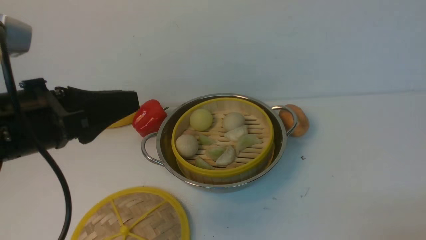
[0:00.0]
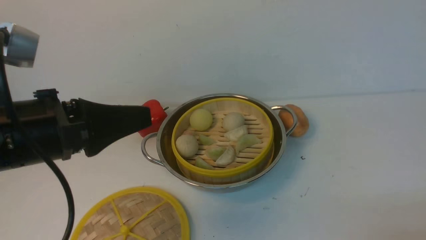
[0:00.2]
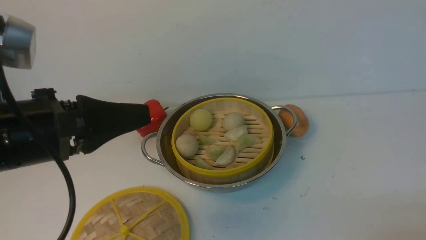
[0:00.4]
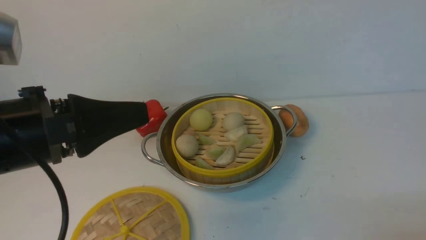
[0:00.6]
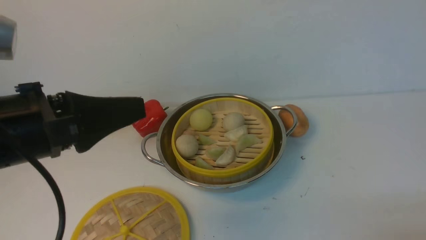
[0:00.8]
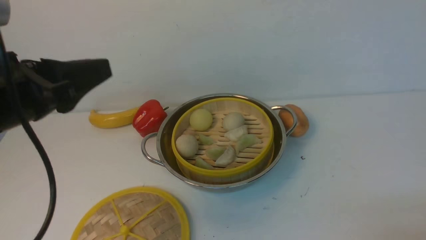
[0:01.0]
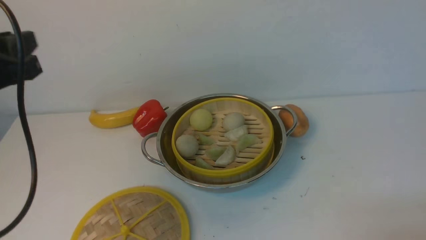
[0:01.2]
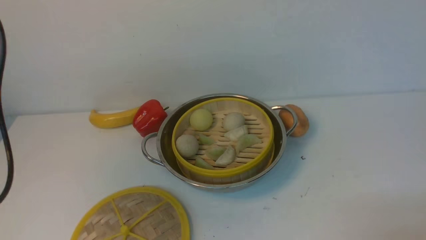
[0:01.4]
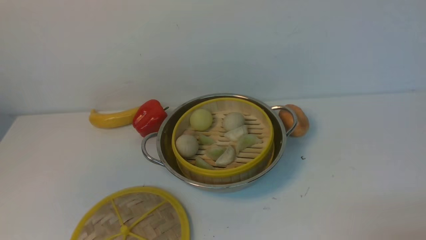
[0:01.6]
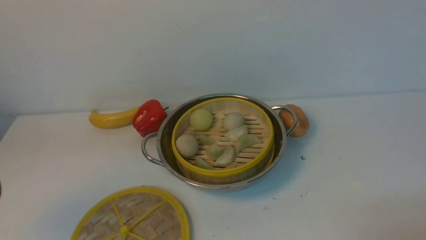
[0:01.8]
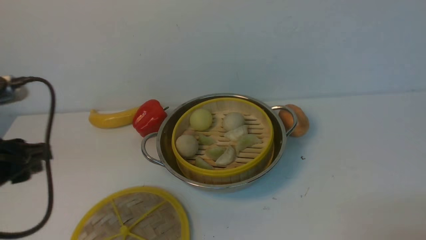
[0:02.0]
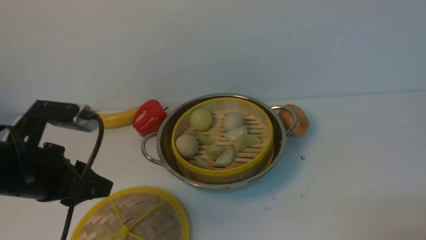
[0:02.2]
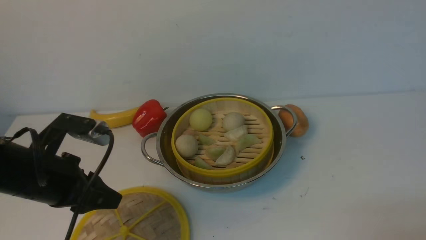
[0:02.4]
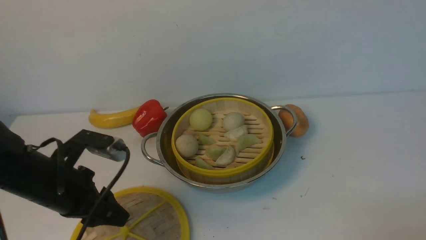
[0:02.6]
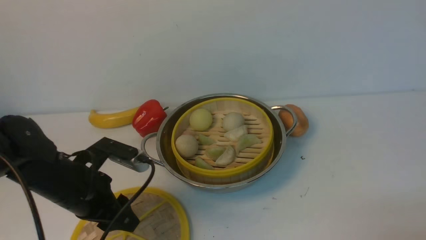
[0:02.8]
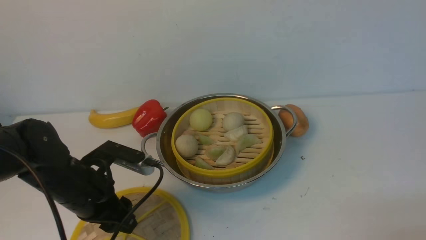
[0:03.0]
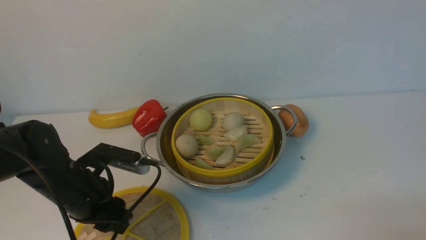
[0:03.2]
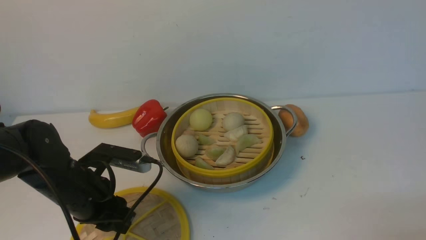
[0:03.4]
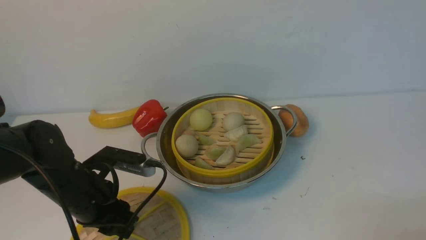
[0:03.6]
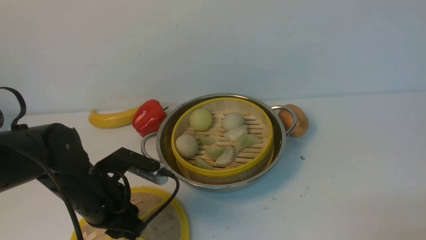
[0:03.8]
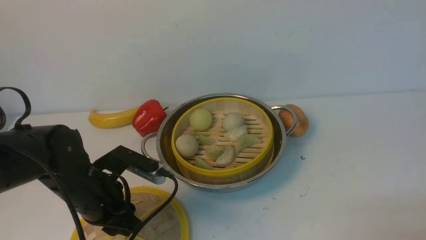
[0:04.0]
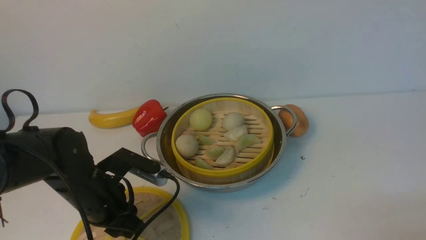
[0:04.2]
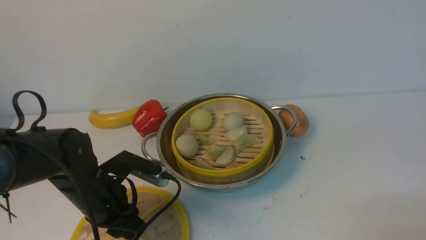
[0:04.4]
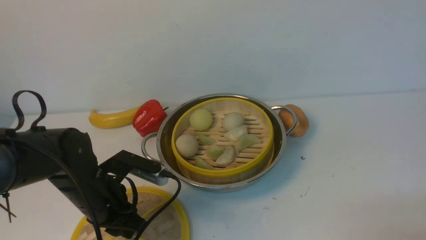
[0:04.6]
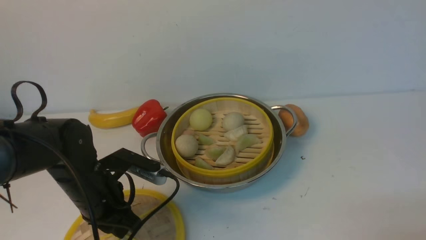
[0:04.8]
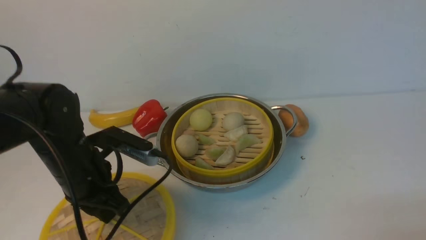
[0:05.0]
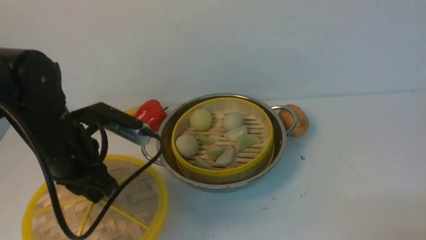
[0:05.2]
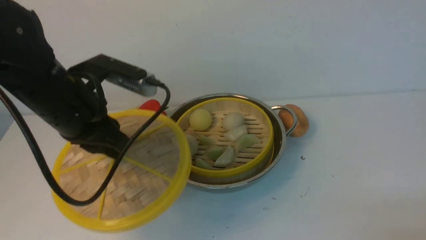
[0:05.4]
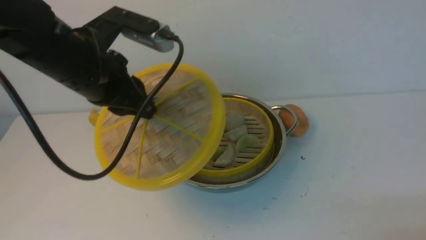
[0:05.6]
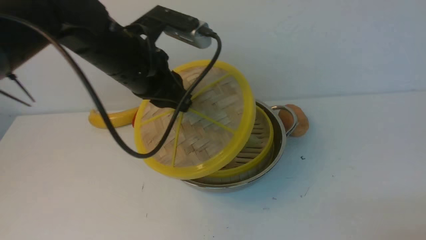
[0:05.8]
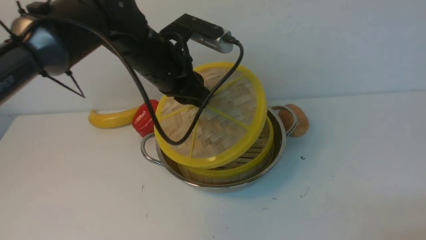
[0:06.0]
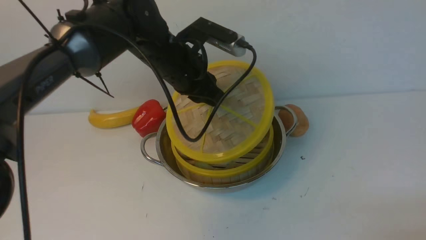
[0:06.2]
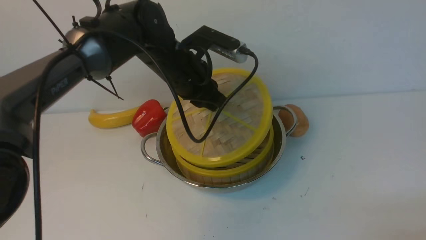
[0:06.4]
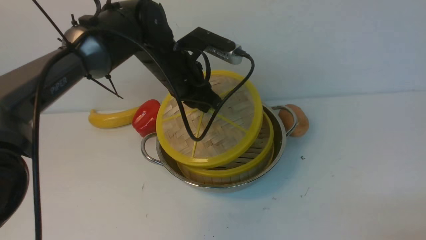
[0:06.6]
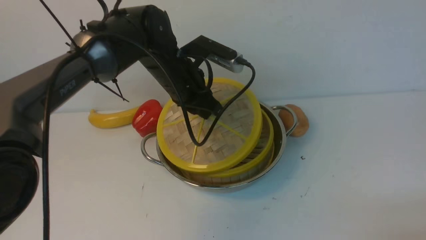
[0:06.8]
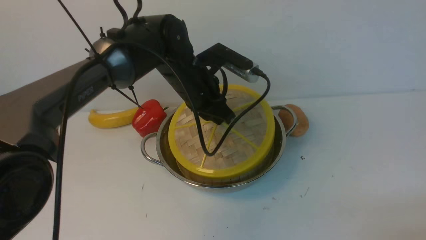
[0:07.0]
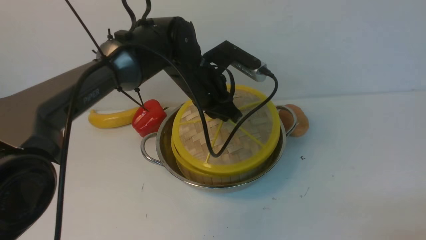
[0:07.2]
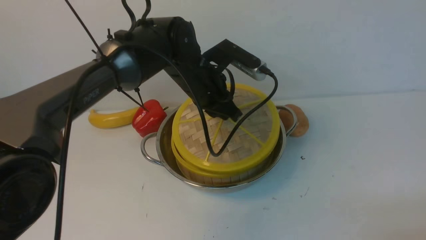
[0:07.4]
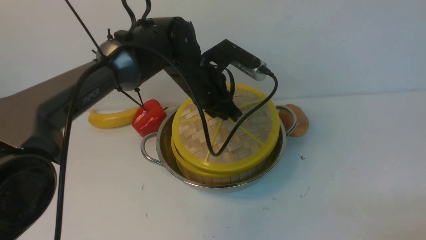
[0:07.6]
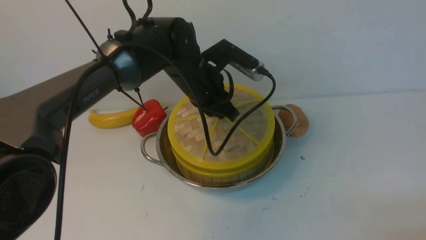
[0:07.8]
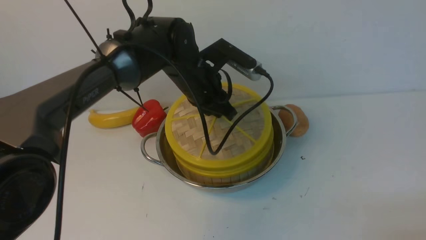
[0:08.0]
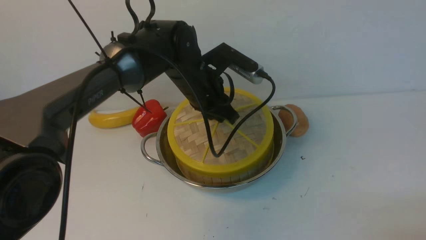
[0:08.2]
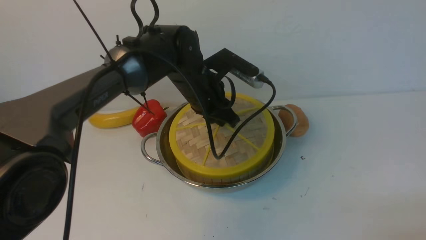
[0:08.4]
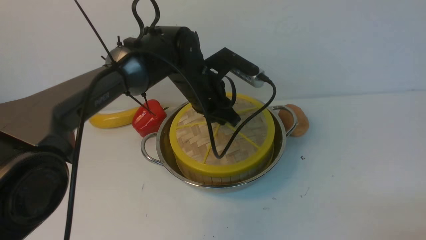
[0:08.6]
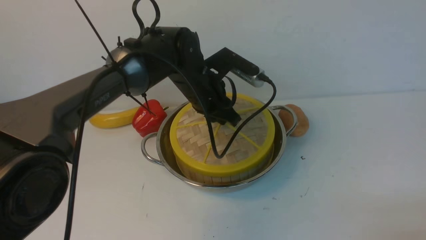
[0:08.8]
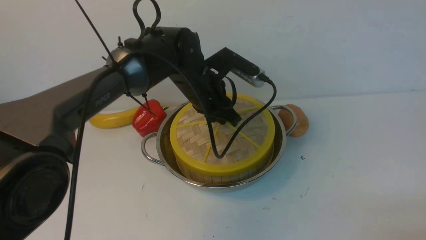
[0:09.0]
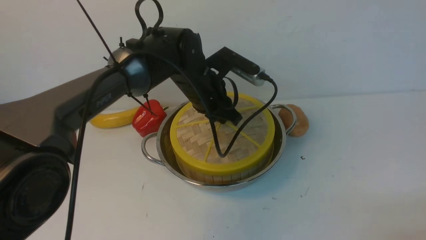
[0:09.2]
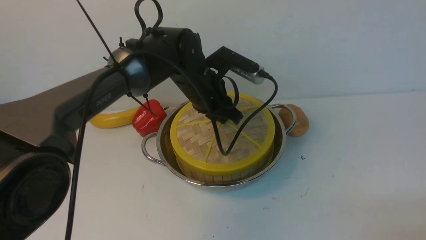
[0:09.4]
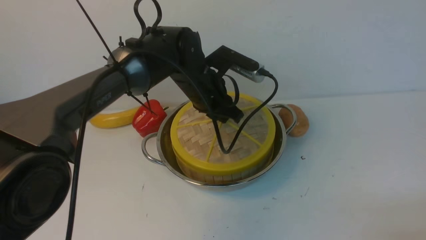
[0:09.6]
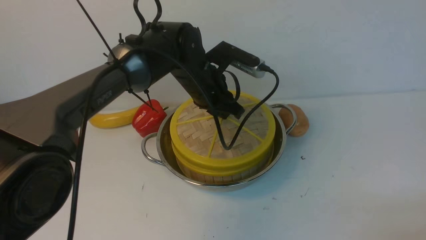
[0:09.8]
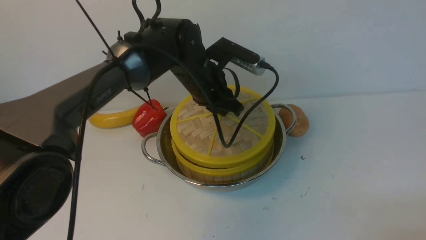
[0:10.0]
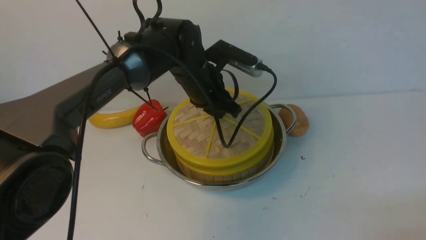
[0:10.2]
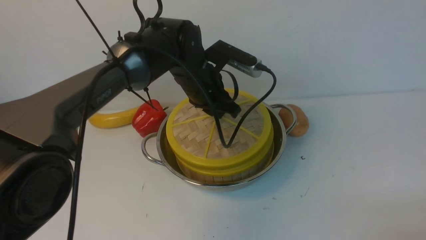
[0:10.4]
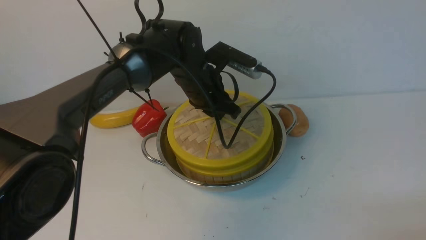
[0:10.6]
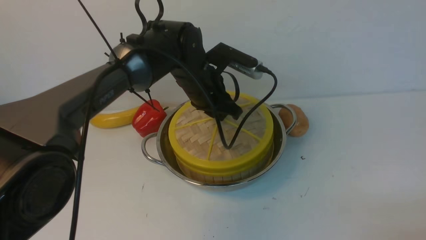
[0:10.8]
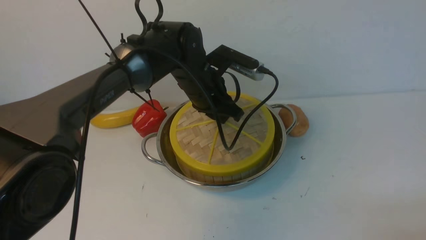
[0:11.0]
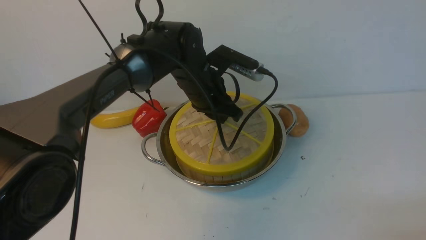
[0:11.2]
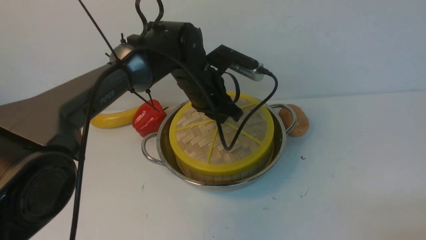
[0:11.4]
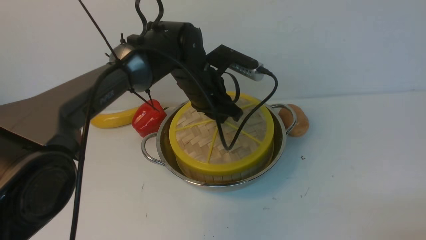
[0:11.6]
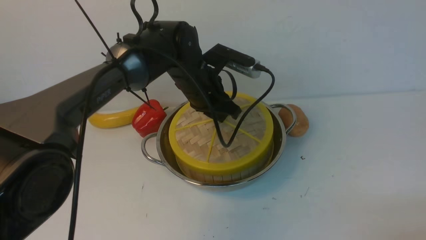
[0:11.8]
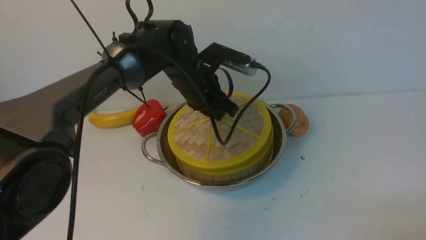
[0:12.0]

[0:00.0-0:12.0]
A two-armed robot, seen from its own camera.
Task of the whole recording: place the steamer in the pot on the white table, and put the lid on the steamer.
Step, 0:00.0 to 0:05.4: use the left arm to lift the lid of the steamer.
0:00.0 to 0:01.6: The left gripper heads to the left, covering approximately 15 cm.
0:01.6 to 0:03.0: The left gripper travels downward and to the right by approximately 20 cm, and opens.
0:03.0 to 0:04.4: The grippers move only a little.
0:04.4 to 0:06.0: The left gripper is displaced upward, forward and to the right by approximately 20 cm, and closes up.
0:06.0 to 0:07.6: The left gripper goes about 10 cm downward and to the right.
0:07.6 to 0:09.0: The grippers move only a little.
0:09.0 to 0:10.4: The two grippers keep their place.
0:10.4 to 0:12.0: Neither gripper changes place.

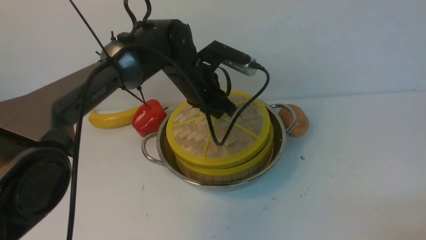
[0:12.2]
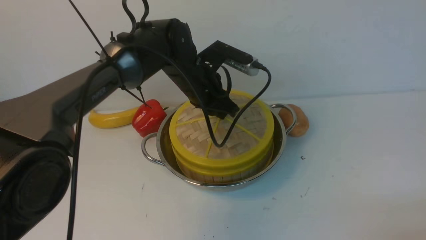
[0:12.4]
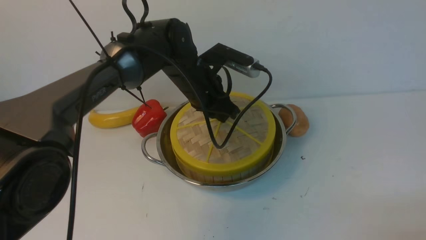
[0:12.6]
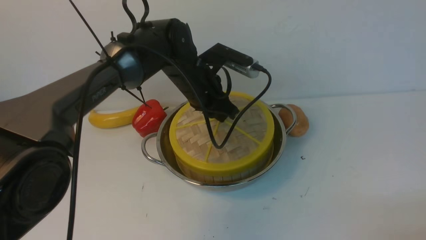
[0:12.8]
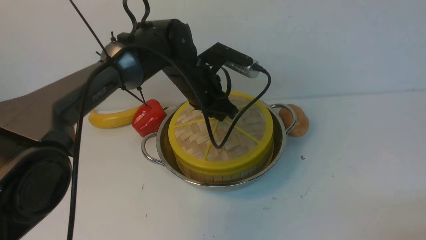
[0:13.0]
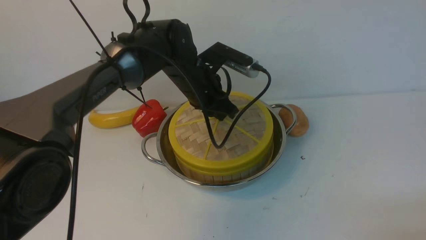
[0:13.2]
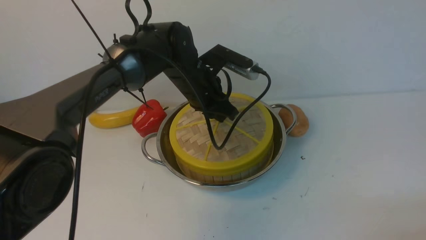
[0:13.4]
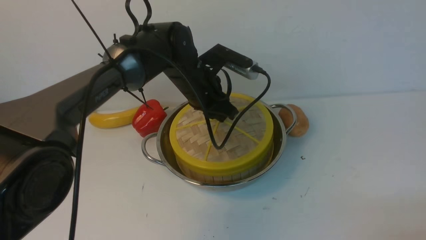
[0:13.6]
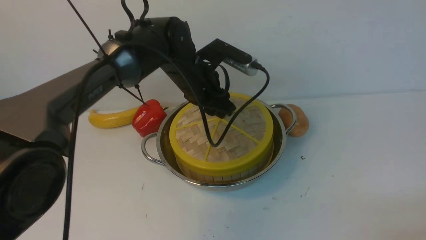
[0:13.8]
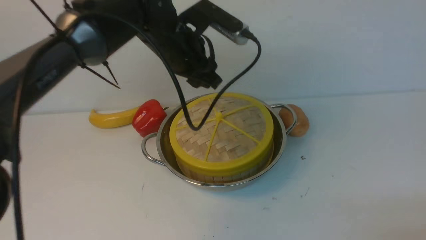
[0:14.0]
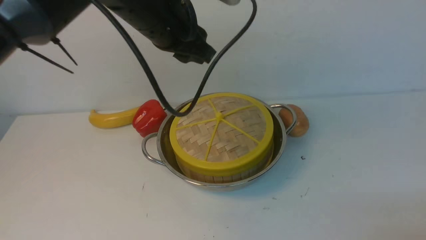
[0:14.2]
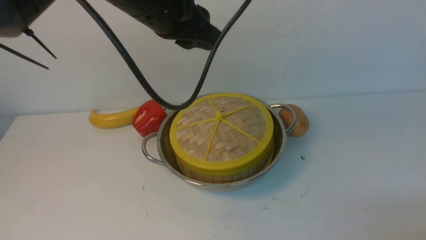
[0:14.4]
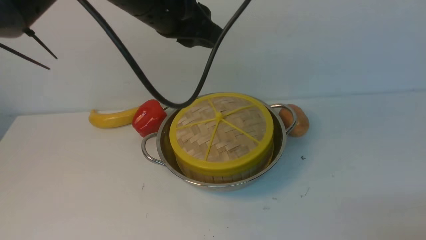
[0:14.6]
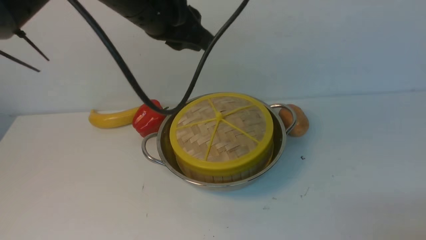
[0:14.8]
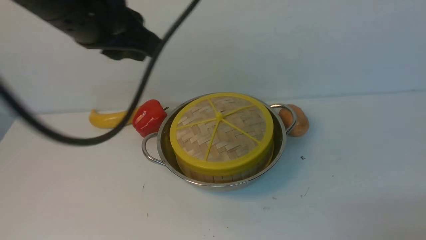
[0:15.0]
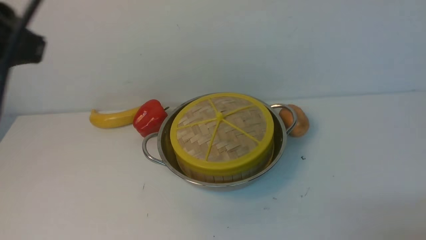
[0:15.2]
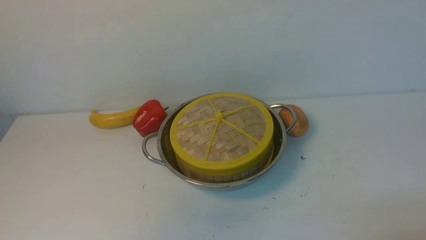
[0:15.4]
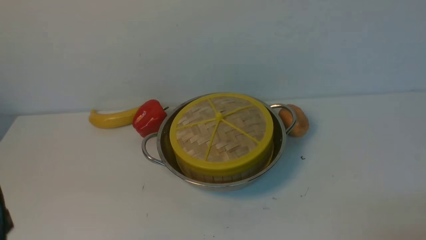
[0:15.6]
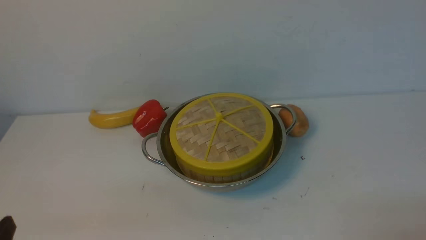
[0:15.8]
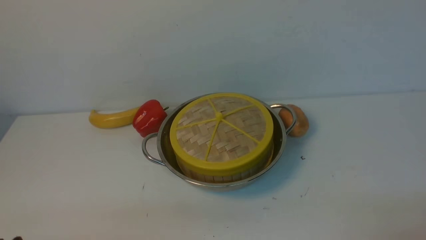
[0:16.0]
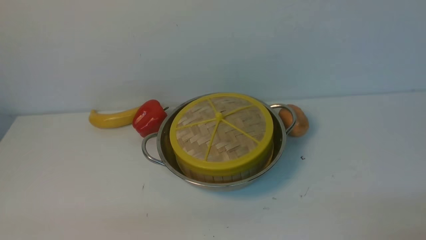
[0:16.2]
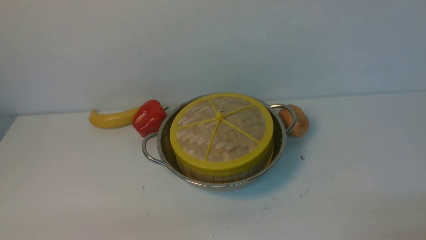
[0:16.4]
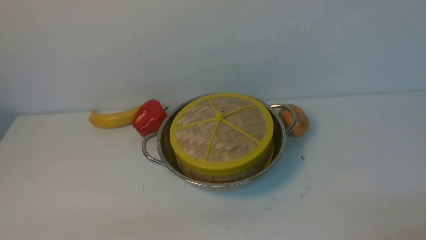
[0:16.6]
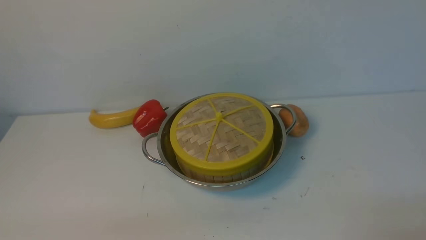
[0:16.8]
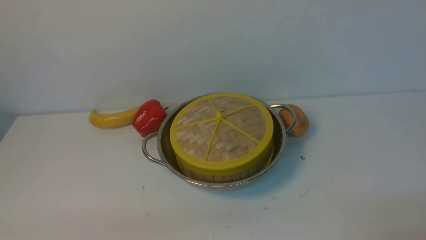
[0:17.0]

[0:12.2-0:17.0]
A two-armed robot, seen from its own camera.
Task of the whole recording: place the steamer in the pot on the white table, and put the lid on the steamer.
Step, 0:12.2 to 0:14.2: use the left arm to place the steamer lid on the steamer.
0:12.2 to 0:13.8: The left gripper opens up.
0:13.8 to 0:15.4: The left gripper moves backward, to the left and upward, some 40 cm, and closes.
0:15.4 to 0:17.0: The left gripper travels downward by about 20 cm.
